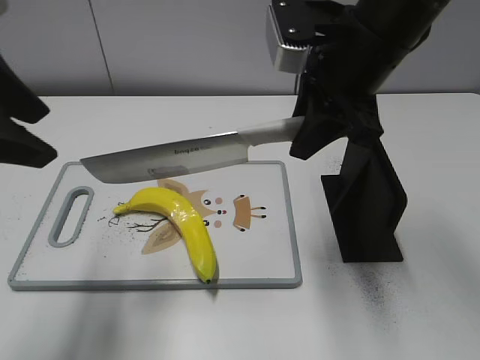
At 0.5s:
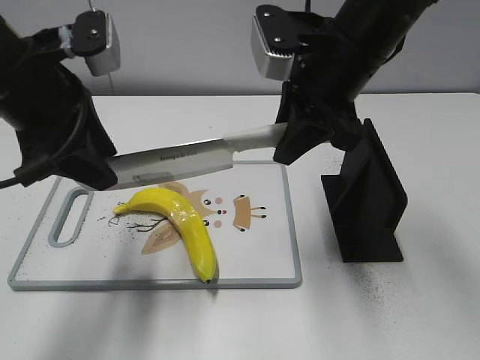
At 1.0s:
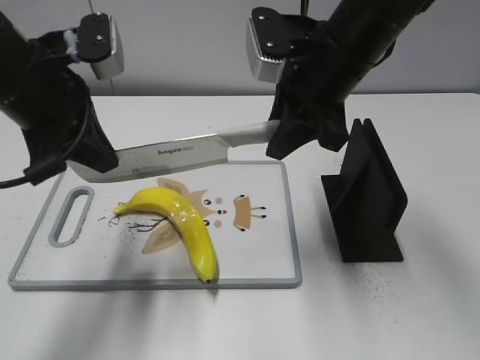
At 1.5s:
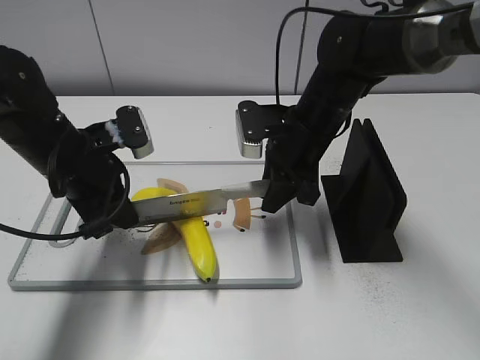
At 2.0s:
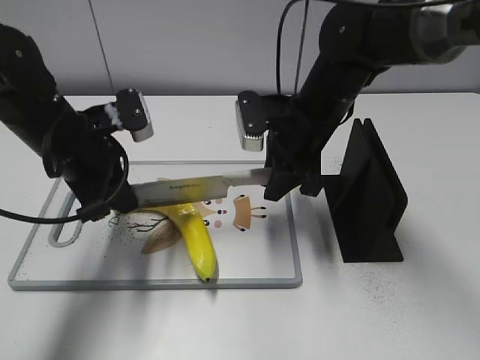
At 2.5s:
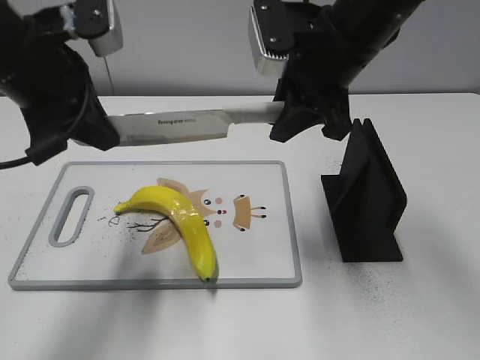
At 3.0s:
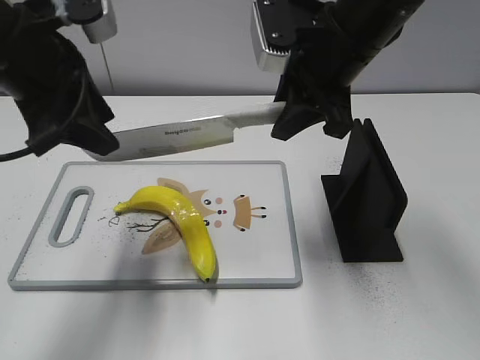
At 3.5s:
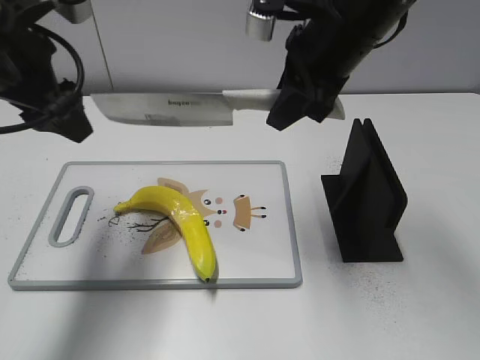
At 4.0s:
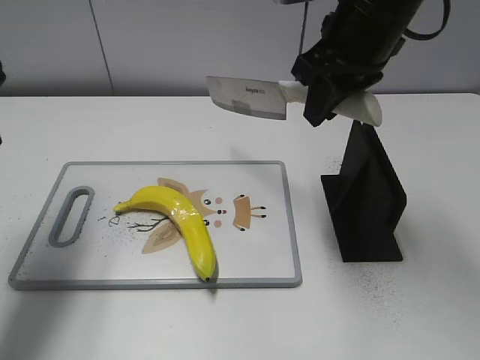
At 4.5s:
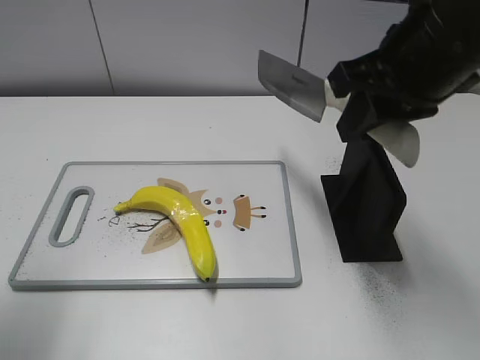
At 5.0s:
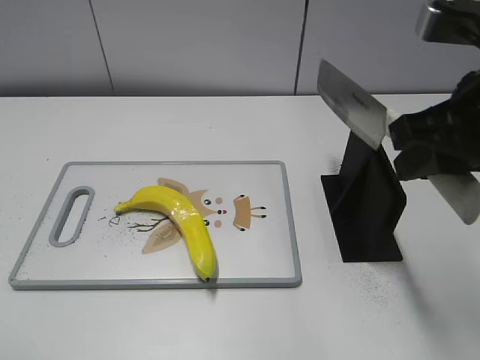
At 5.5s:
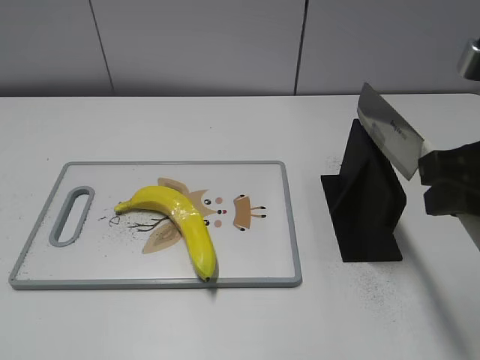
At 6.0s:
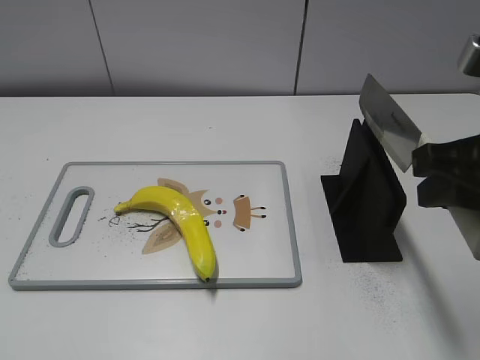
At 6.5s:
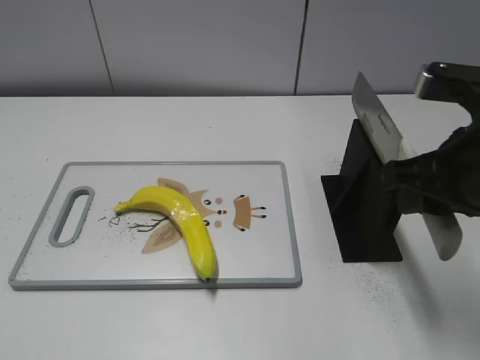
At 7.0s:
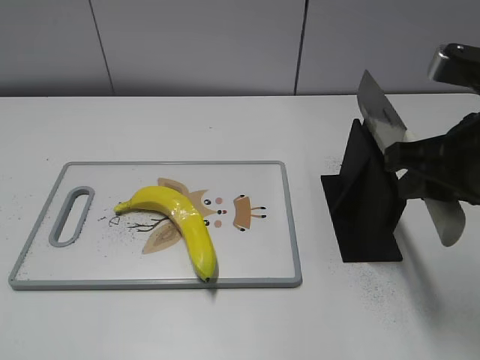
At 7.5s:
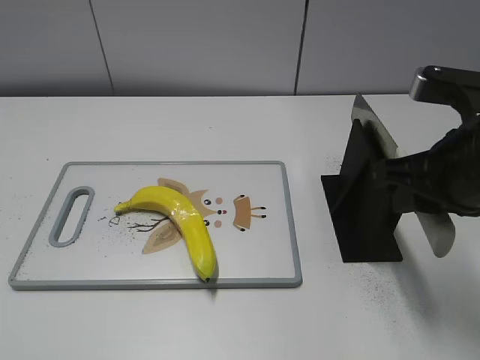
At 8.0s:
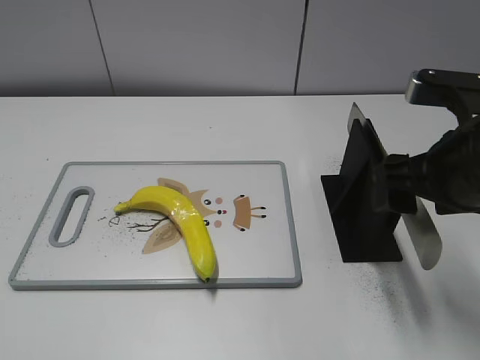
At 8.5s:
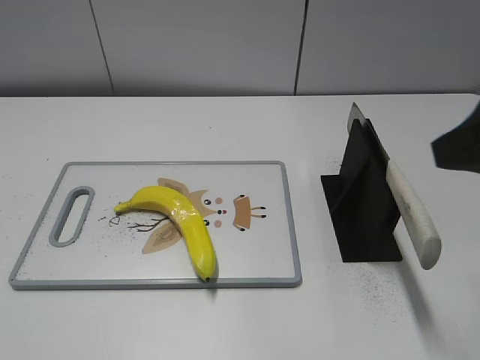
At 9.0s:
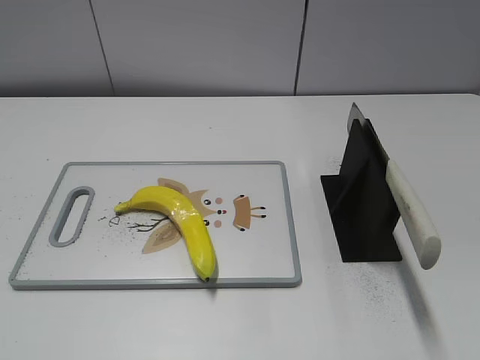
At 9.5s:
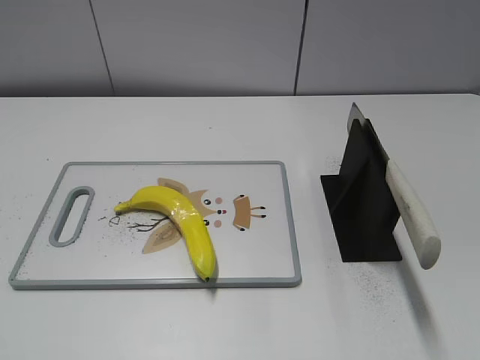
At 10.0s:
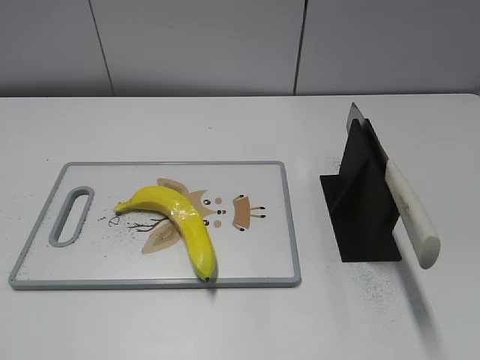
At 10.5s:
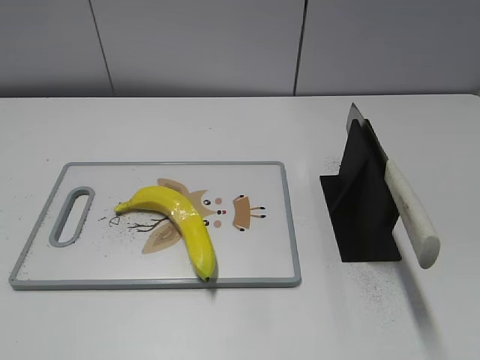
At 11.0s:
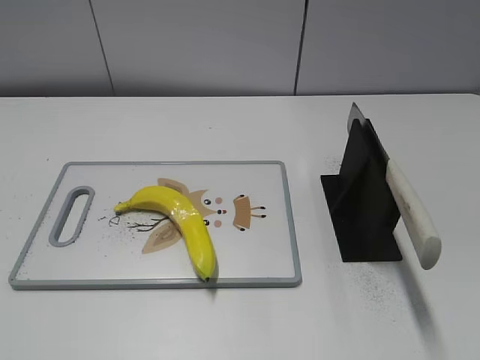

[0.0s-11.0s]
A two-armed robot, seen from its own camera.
Task of the whole recording: cut plastic banana.
Step, 0.0s to 3.0s: Hold the blade with your left hand.
Step, 3.5s to 4.0s: Cut the banana with your right hand.
Step, 4.5s to 5.5s: Secure the blade with your left hand.
Step, 6.0s to 11.0s: Place the knife on the storage rack with your right hand.
0.0s to 2.0s: The grippers both shift downward and forward by about 15 cm. The left gripper closes.
2.0s to 3.5s: Both grippers travel together upward, about 10 cm. The left gripper opens.
3.5s to 5.5s: The left gripper goes about 30 cm backward, while the right gripper travels backward and to the right by some 20 cm.
5.5s to 7.5s: The right gripper changes place by roughly 5 cm.
7.5s to 9.0s: The right gripper is displaced backward, to the right and upward by about 20 cm, and opens.
